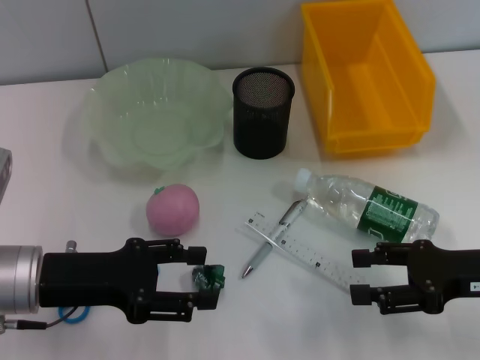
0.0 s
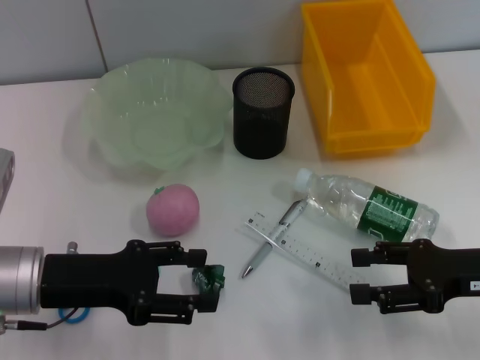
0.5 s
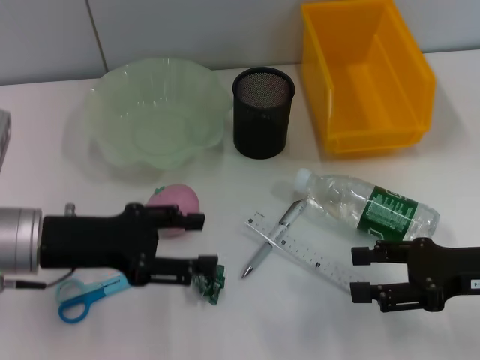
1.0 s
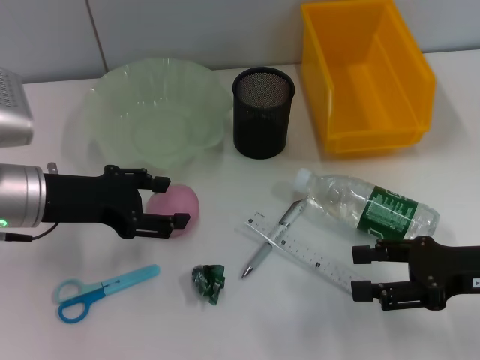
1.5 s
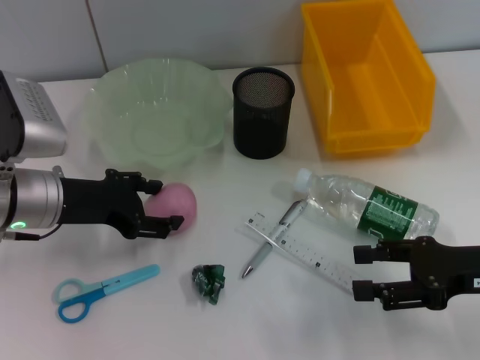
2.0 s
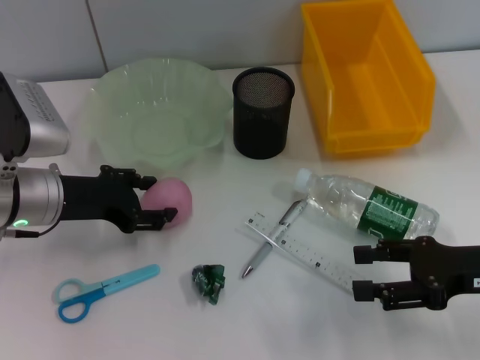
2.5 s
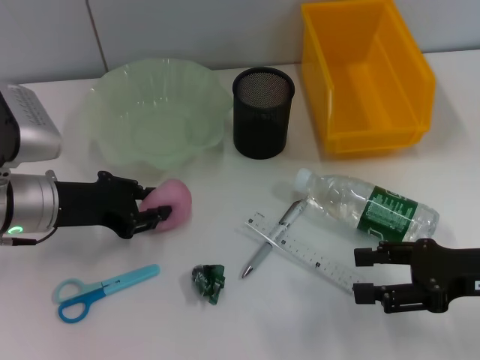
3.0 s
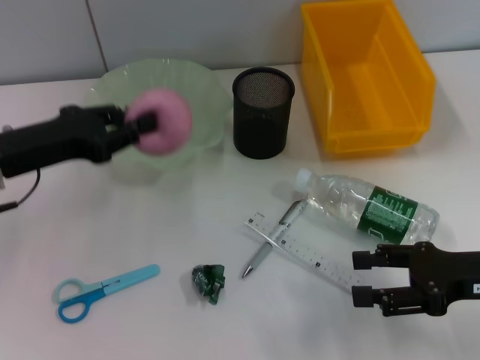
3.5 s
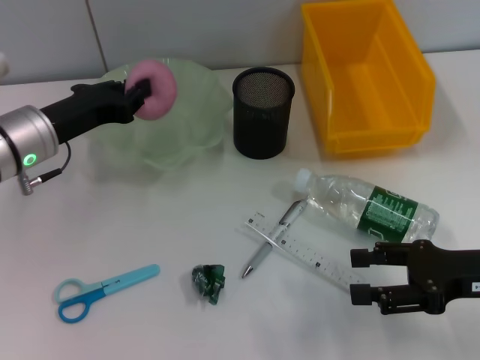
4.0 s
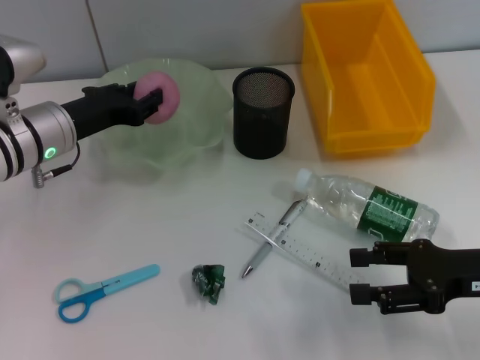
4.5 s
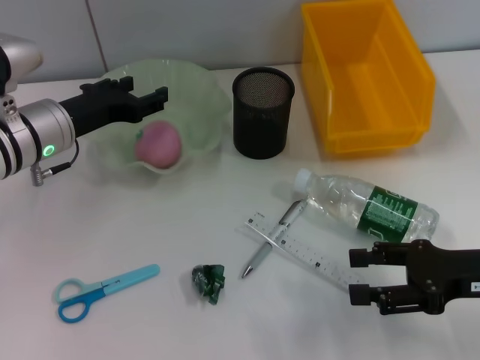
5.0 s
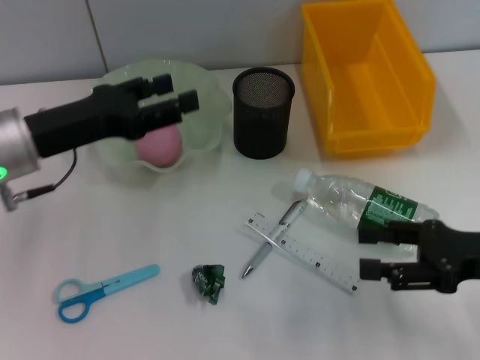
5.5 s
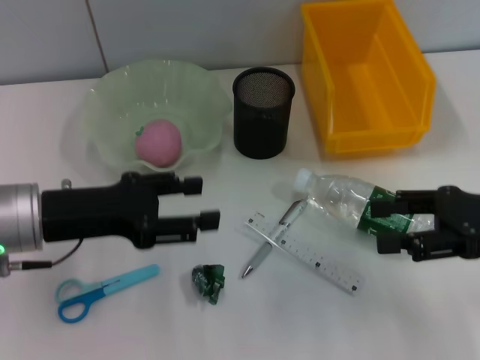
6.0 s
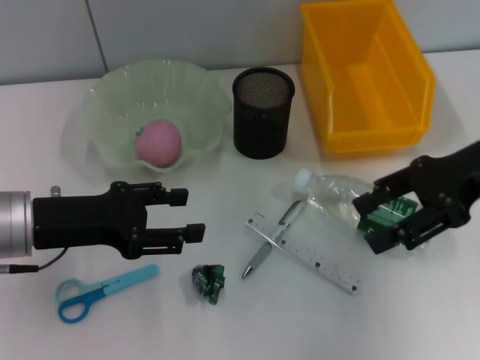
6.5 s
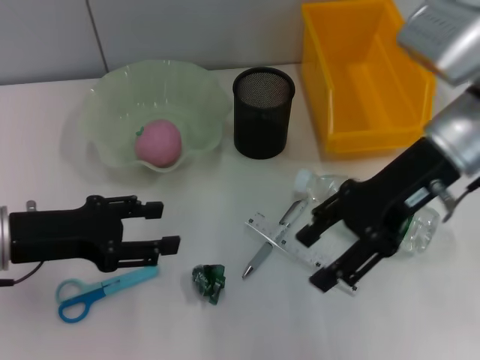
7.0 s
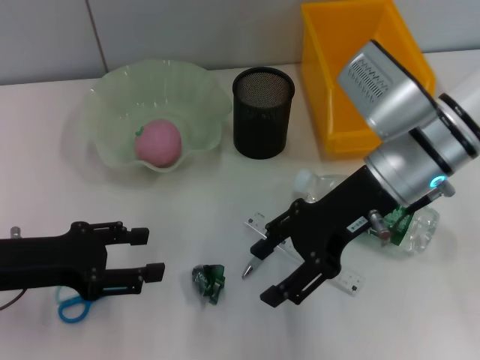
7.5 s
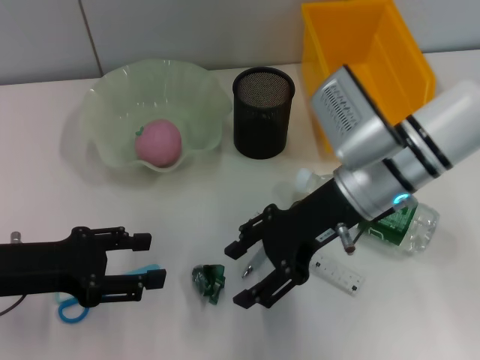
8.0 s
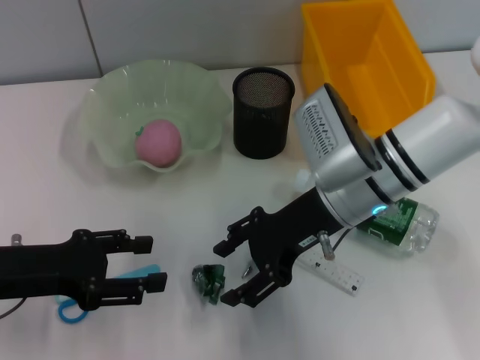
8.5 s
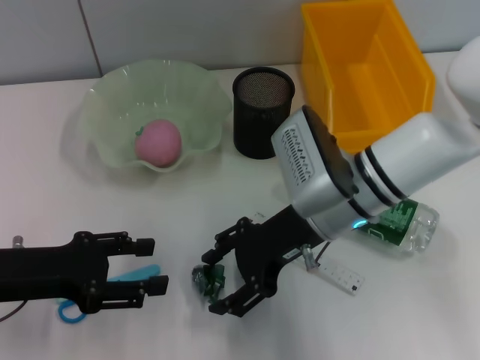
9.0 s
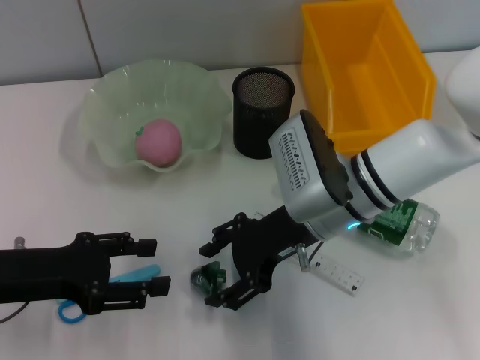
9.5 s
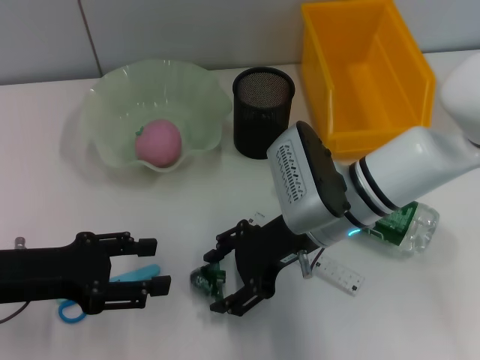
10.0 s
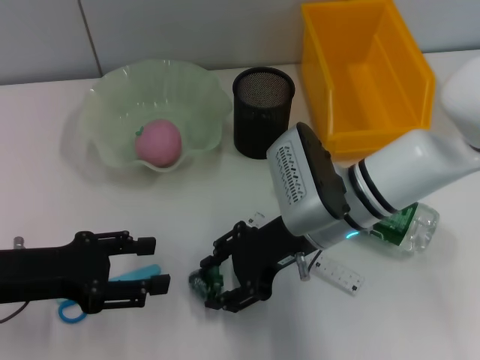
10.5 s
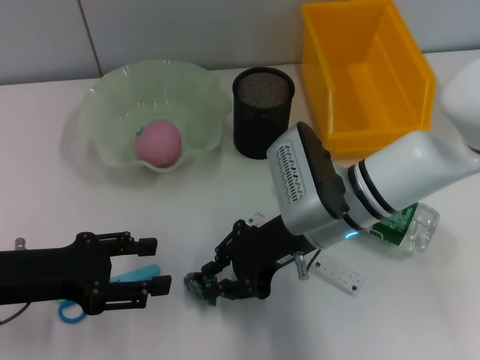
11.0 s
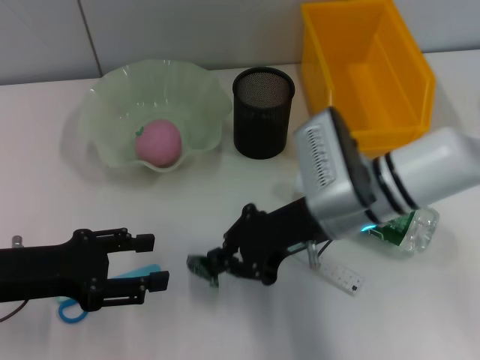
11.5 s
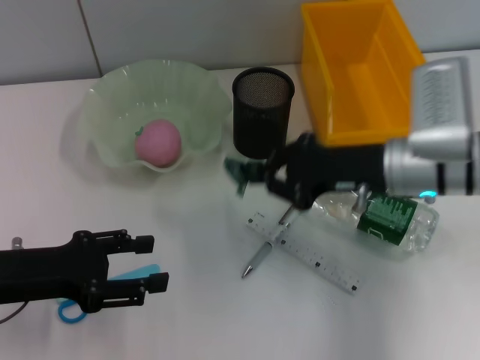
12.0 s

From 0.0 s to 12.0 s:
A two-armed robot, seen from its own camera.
Step, from 0.0 s to 2.5 s: Grab the peach with the left hand.
Step, from 3.0 s to 4.5 s: Place the peach into the fruit bowl with the left hand.
Step, from 5.5 s to 11.0 s: Grab the plastic with the right hand.
From 0.0 s to 2.0 s: The left gripper is displaced forward by about 5 cm.
From 2.0 s to 4.0 s: The left gripper closes.
From 4.0 s to 6.0 s: The left gripper travels backward by some 10 cm, and opens its fingers. Meanwhile the right gripper is displaced upward by roughly 5 cm.
From 6.0 s to 8.0 s: The left gripper changes place by roughly 5 cm; the right gripper travels to the left and forward by approximately 20 cm.
From 8.0 s to 10.0 s: The right gripper changes place by roughly 5 cm.
From 10.0 s to 12.0 s: The right gripper shifts approximately 10 cm to the right, and closes.

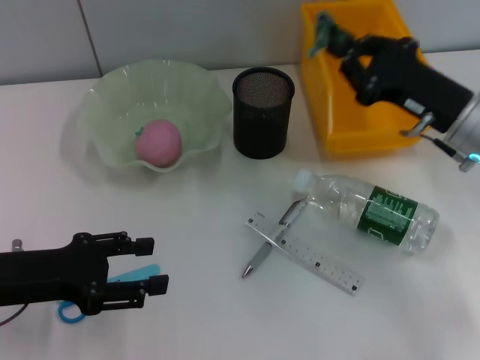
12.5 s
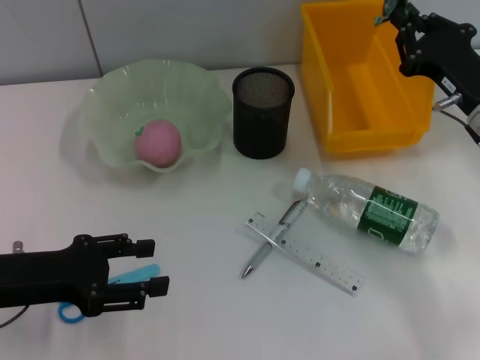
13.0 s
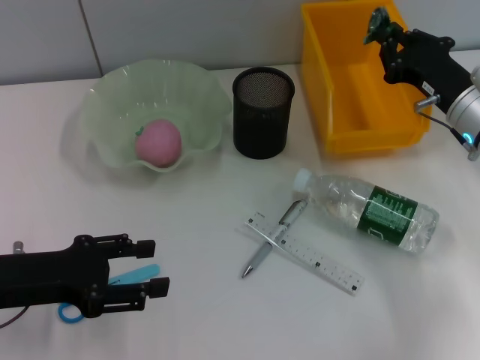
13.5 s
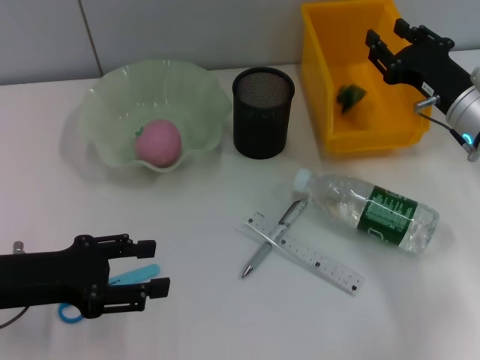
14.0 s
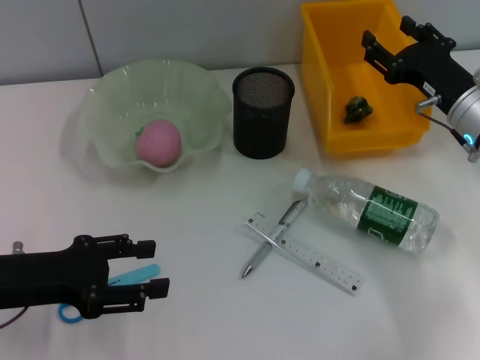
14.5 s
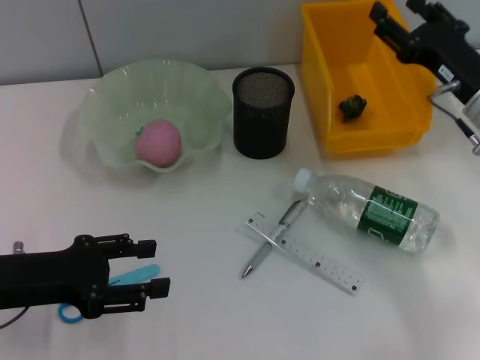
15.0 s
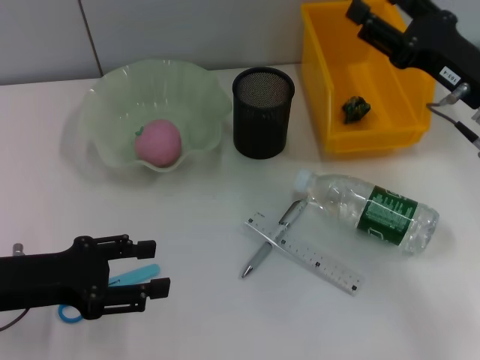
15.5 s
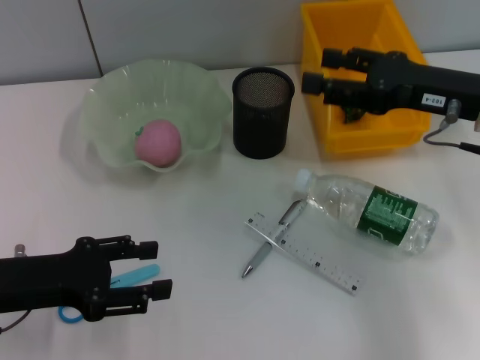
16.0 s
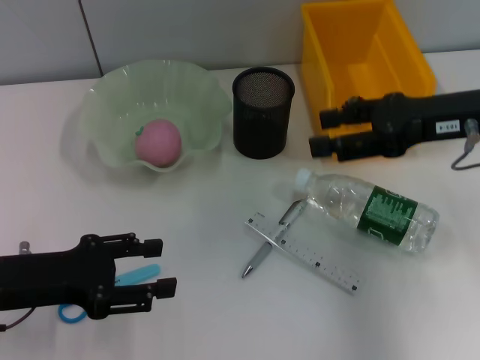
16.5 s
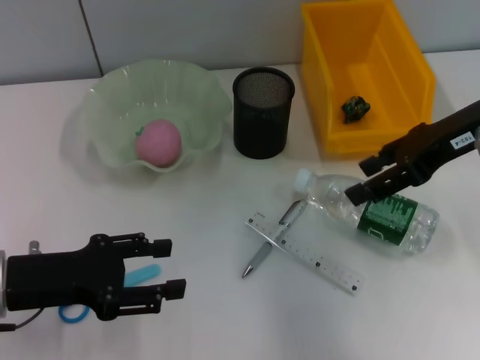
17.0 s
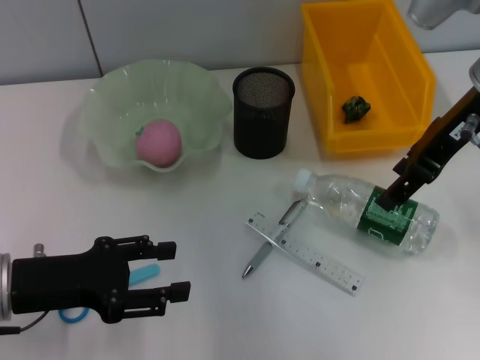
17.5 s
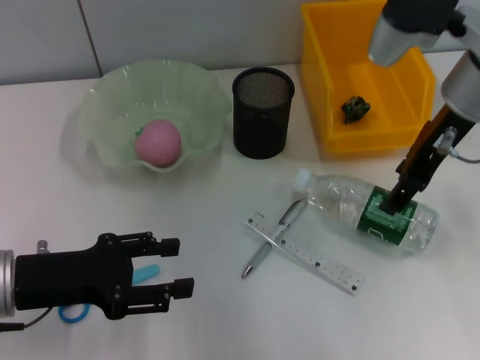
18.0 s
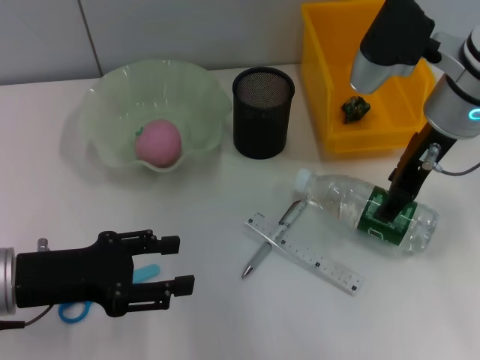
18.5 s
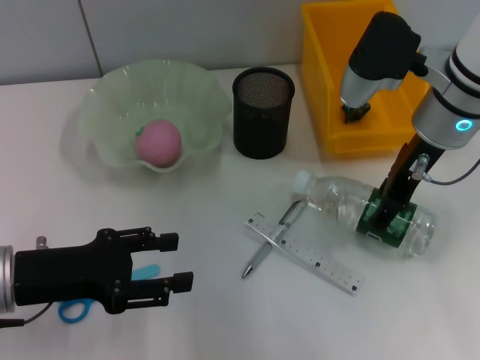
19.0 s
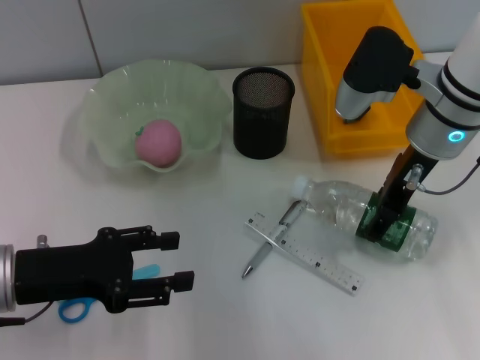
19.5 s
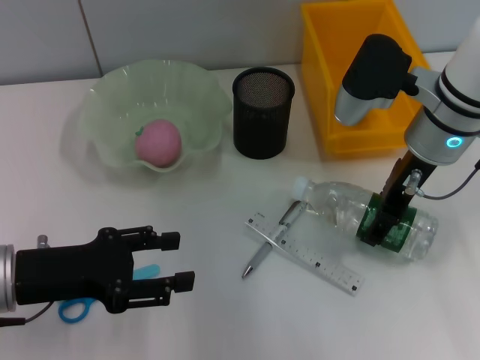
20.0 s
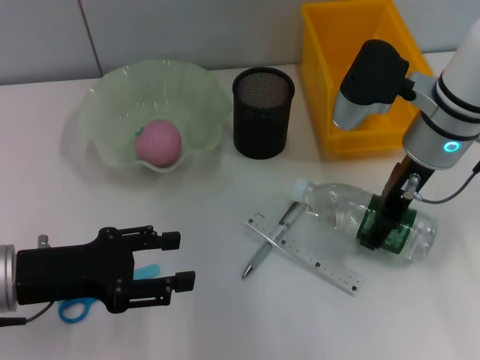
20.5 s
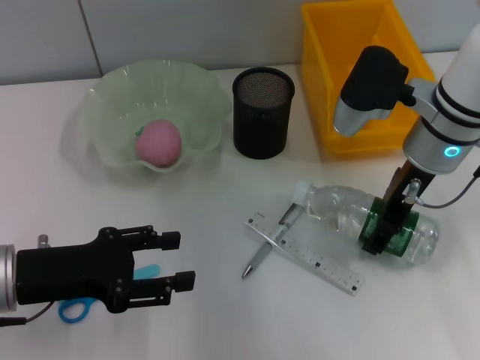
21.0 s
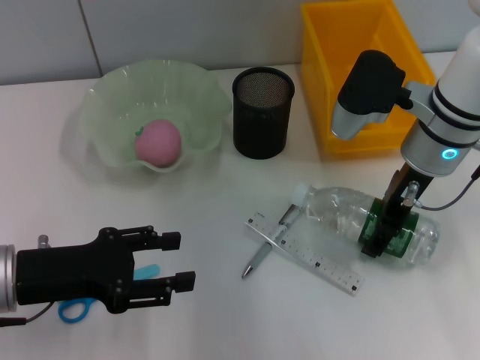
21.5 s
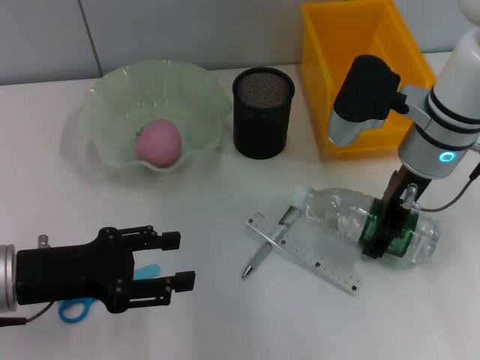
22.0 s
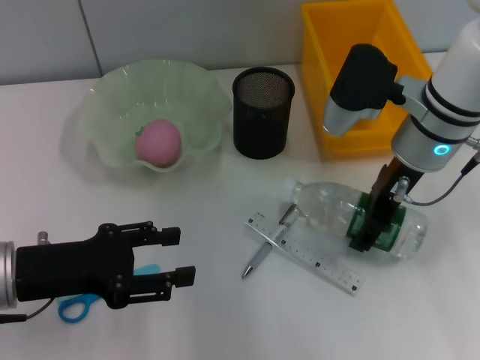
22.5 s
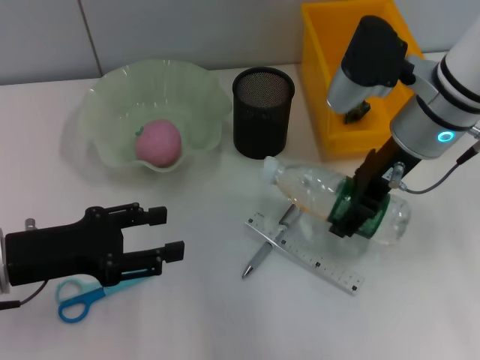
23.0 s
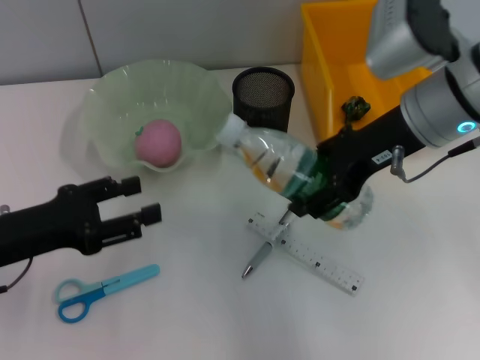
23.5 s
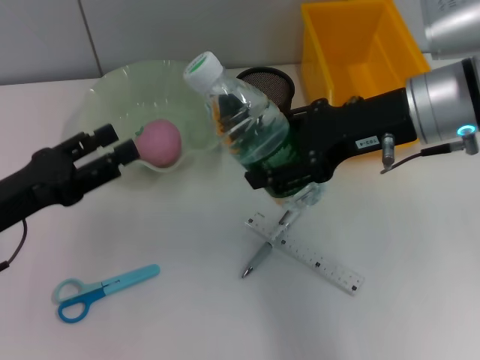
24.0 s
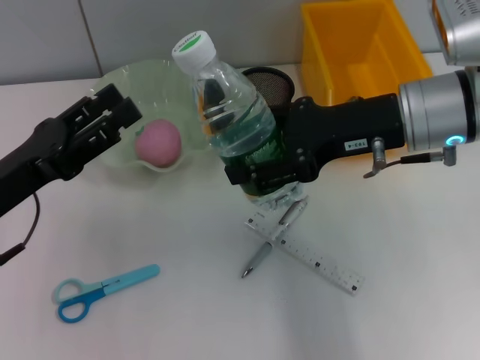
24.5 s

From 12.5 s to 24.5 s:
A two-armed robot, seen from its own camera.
Step, from 12.5 s to 14.0 s: Place the plastic into the trash can with the right hand.
Step, from 14.5 s to 22.0 s: Grab the water bottle with the right hand.
From 12.5 s to 14.5 s: The right gripper opens its fingers.
From 14.5 s to 16.5 s: The right gripper heads upward, covering about 10 cm.
From 16.5 s to 18.5 s: The right gripper is displaced to the left by about 5 cm.
From 18.5 s to 20.5 s: The grippers stay close to where they were, moving slightly.
From 20.5 s to 22.5 s: Both grippers stay about where they are.

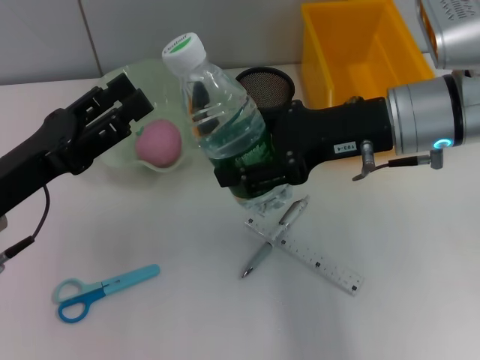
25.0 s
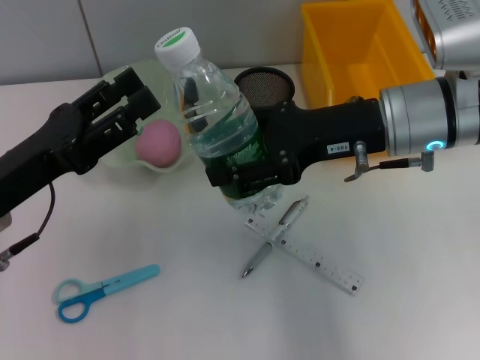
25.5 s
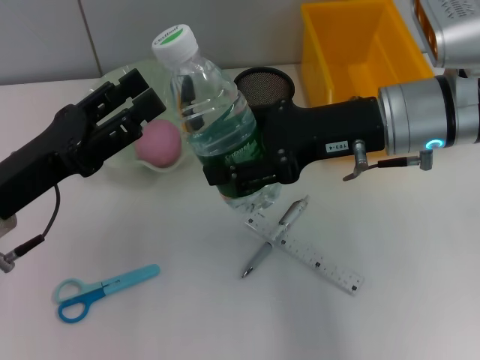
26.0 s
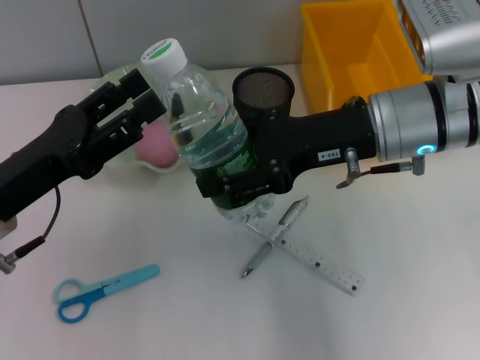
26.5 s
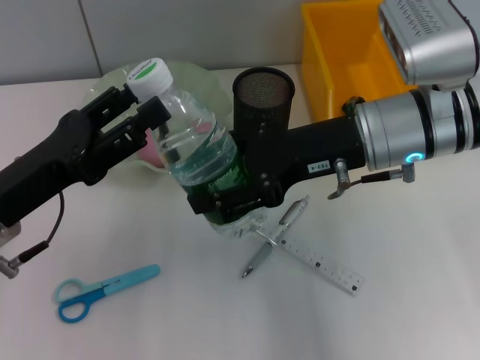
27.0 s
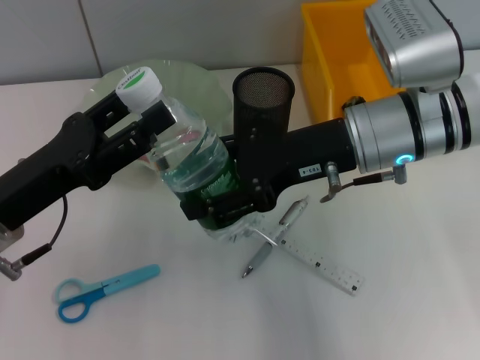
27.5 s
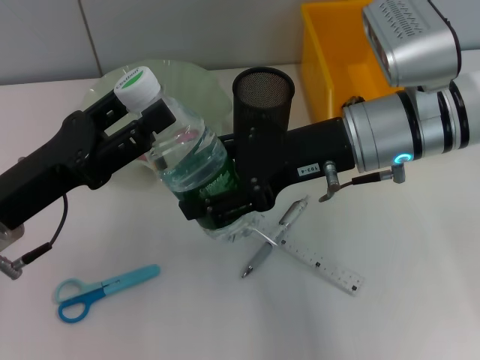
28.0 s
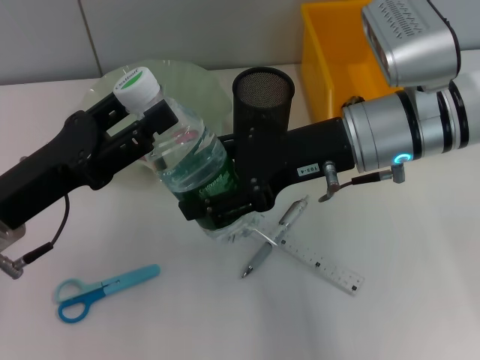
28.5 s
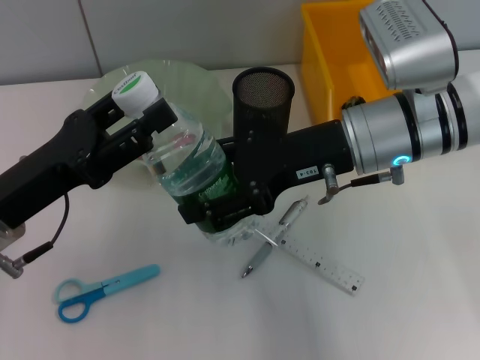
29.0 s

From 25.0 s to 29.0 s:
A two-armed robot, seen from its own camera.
From 25.0 s to 27.0 s: There are only small adjustments of the grippers.
From 27.0 s to 29.0 s: Both grippers stay put.
